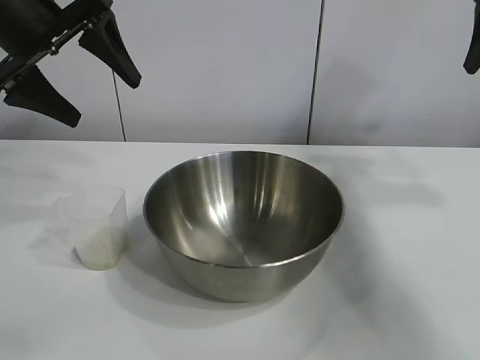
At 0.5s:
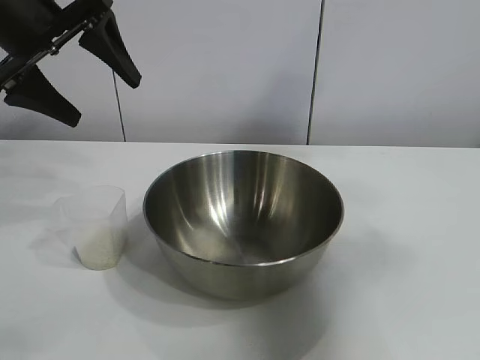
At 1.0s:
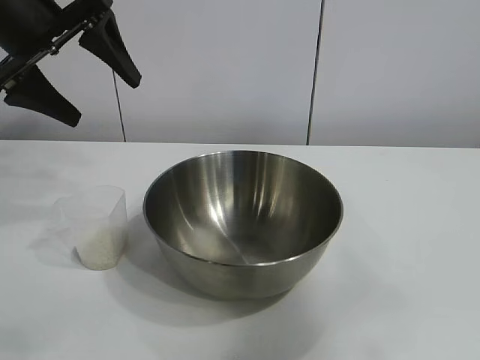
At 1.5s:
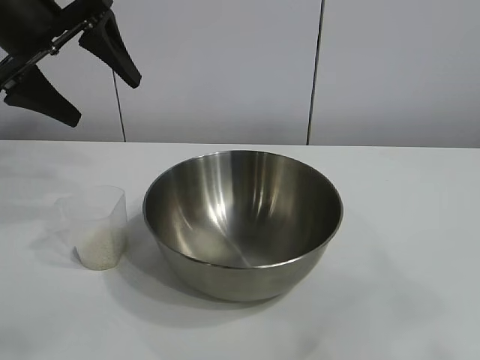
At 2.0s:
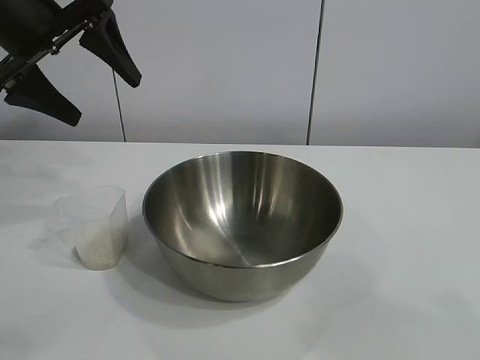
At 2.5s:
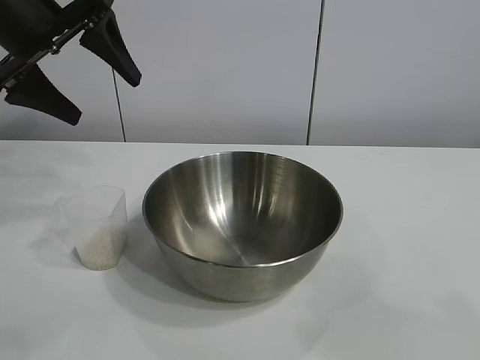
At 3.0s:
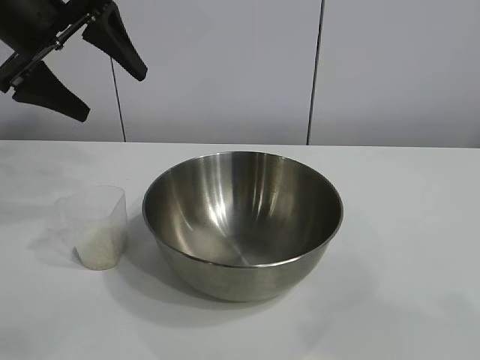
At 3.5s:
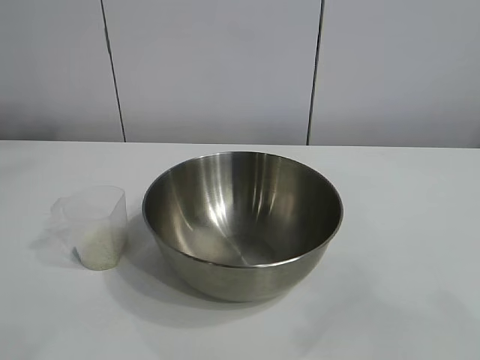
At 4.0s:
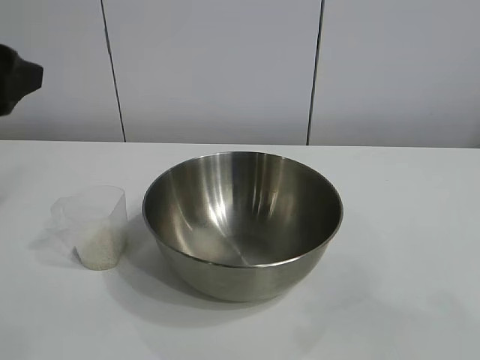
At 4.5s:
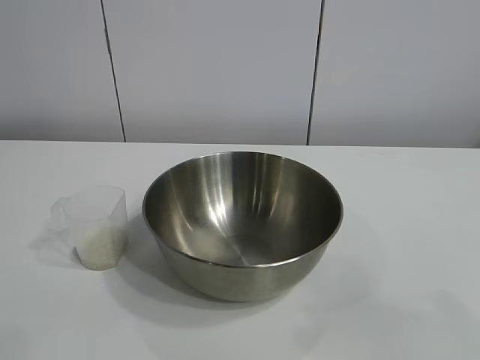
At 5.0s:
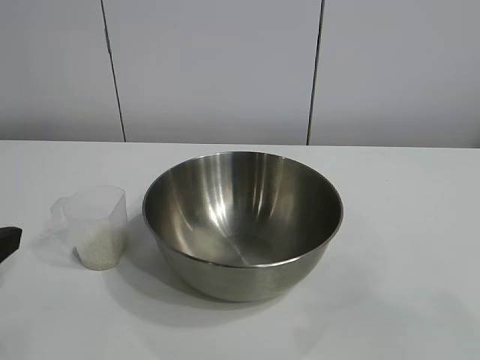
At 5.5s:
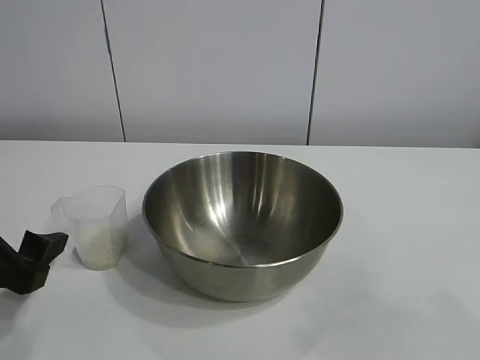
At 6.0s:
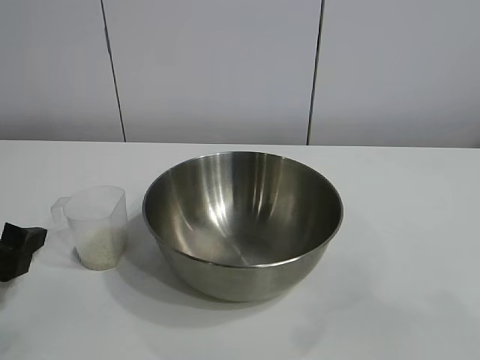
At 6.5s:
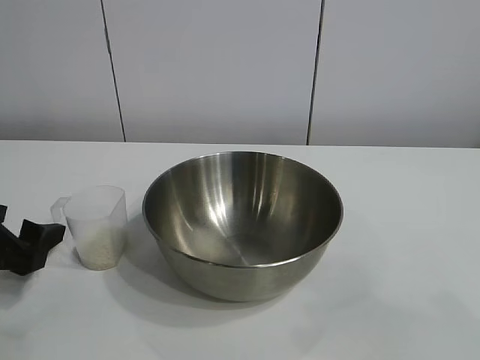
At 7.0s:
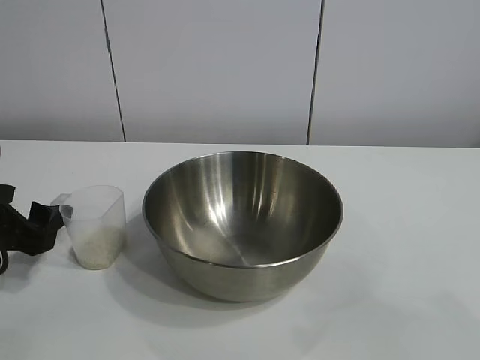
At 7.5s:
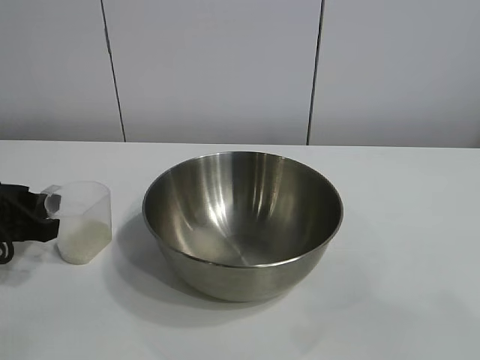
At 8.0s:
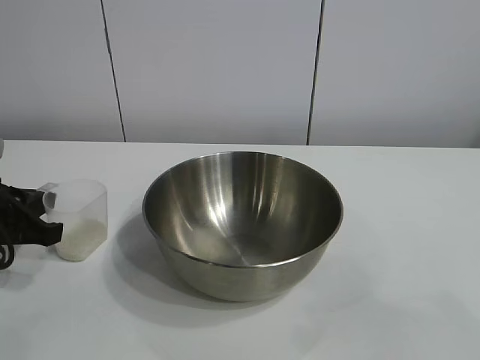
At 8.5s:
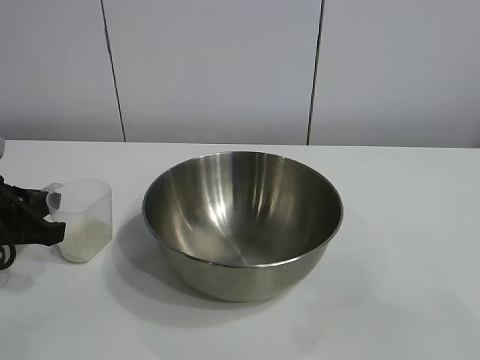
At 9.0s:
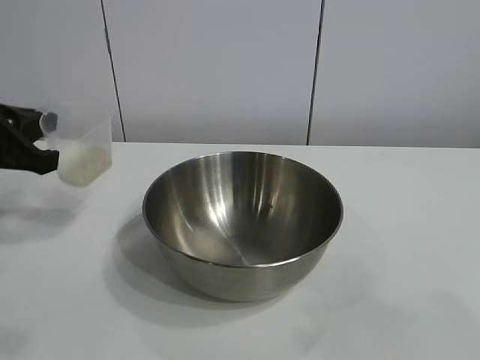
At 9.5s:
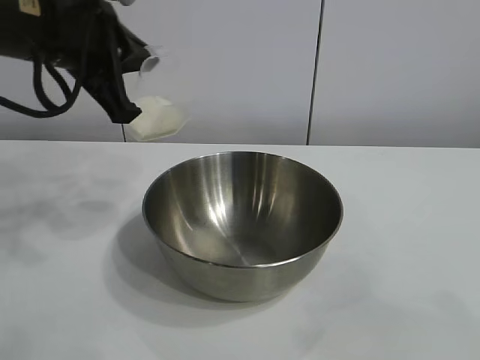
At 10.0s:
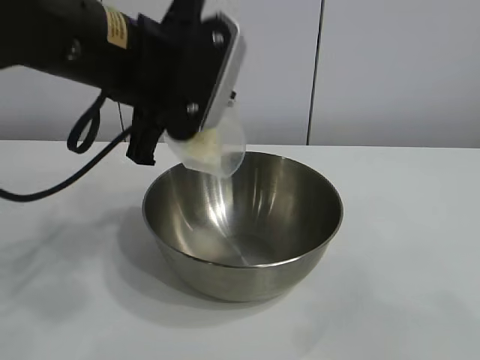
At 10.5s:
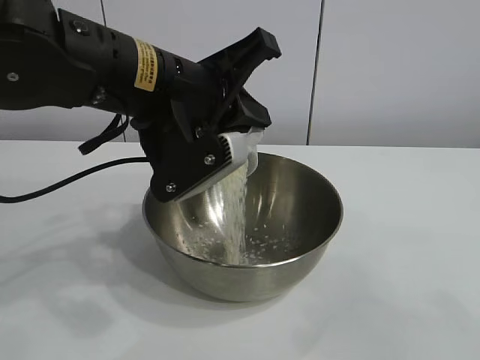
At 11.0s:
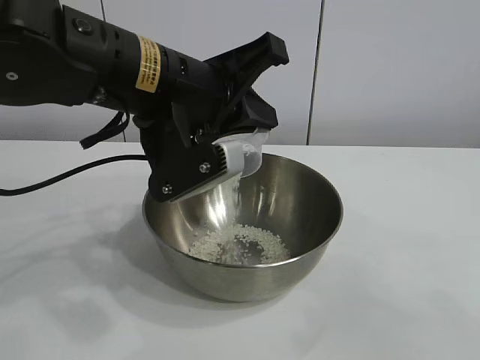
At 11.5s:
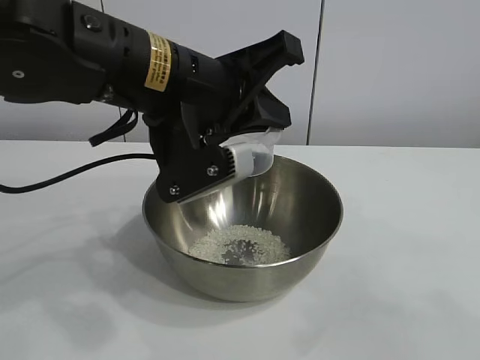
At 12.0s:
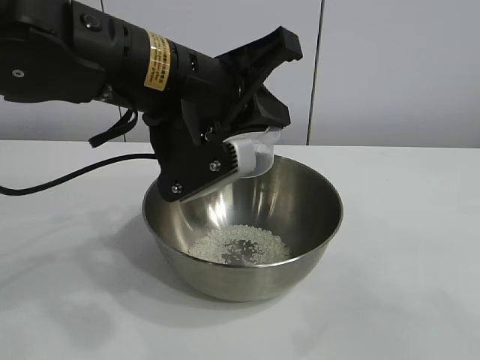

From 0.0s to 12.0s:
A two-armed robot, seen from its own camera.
Task of the whole recording: the right gripper grasp the rice container and place it in the center of the table, the left gripper grasp the rice scoop and pour the rice into the rice container.
Step, from 0.0s to 7.5s: Grasp the cup with rice in it with left gripper.
Step, from 8.0s to 11.0s: Pour the rice from the cup into the bowl with the left gripper.

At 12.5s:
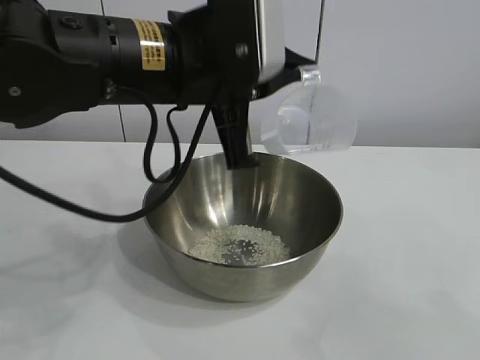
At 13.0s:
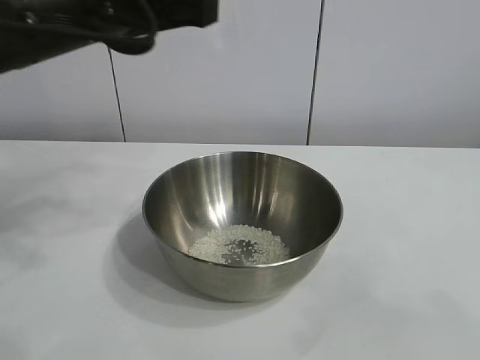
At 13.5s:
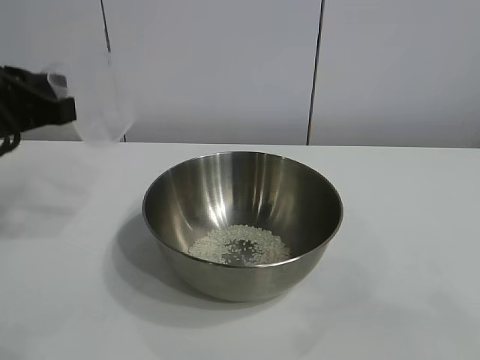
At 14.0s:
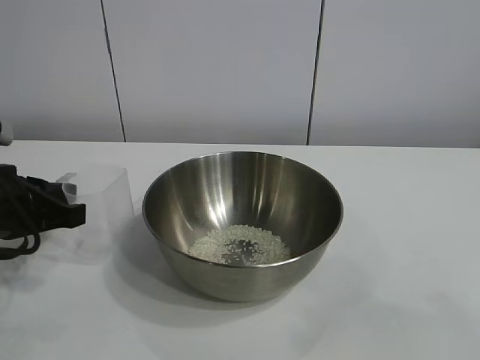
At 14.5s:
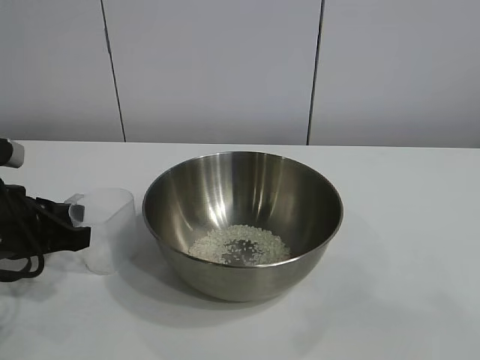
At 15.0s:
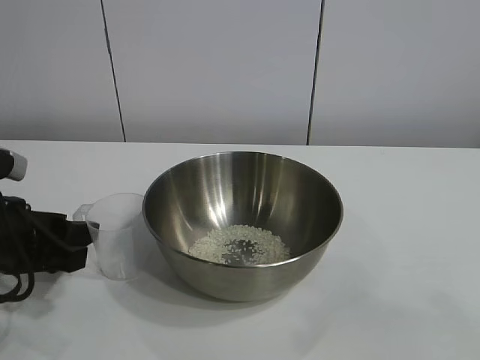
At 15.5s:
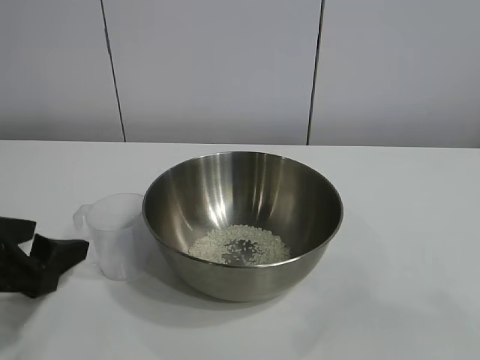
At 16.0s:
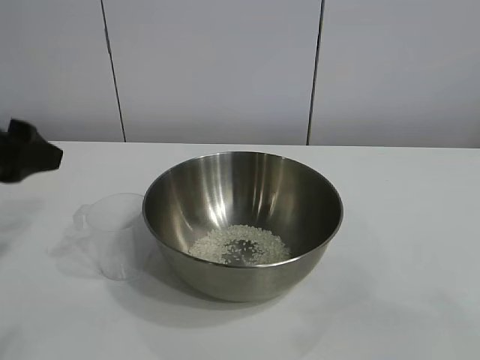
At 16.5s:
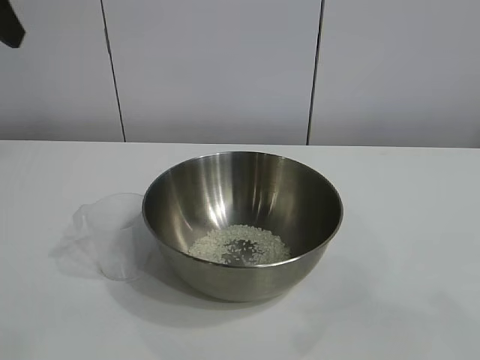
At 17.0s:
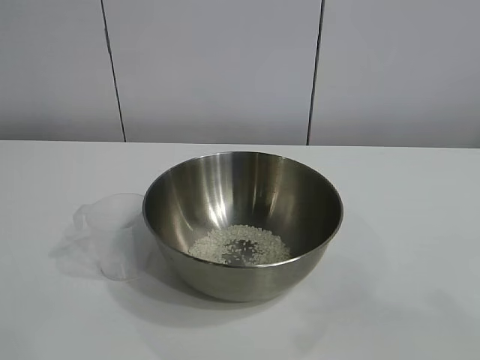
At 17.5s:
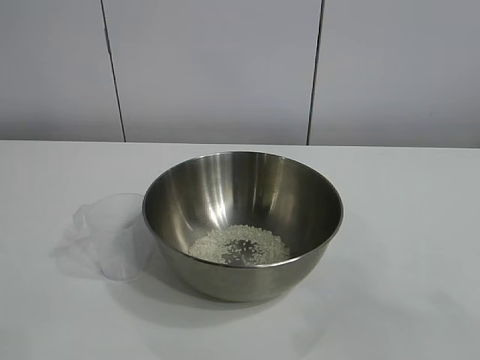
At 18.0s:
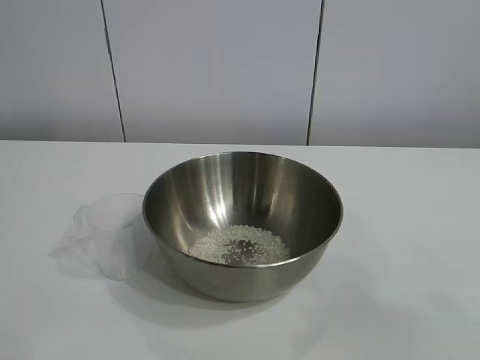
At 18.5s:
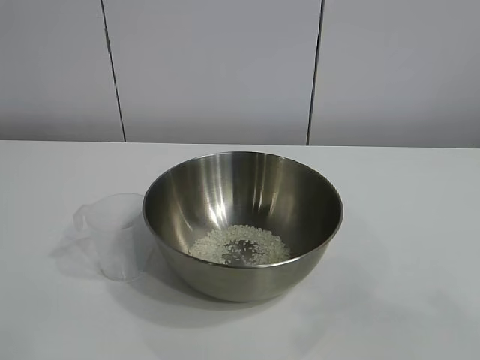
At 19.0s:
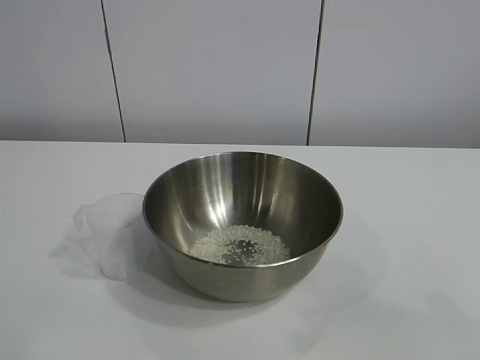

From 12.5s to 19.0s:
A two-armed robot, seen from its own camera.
Task of the whole recording: the right gripper grasp the rice container and place it in the center of the table, the left gripper grasp the rice scoop and pour the rice into the rice container.
Step, from 12.5s to 14.5s: Place the cup on the table with the left gripper.

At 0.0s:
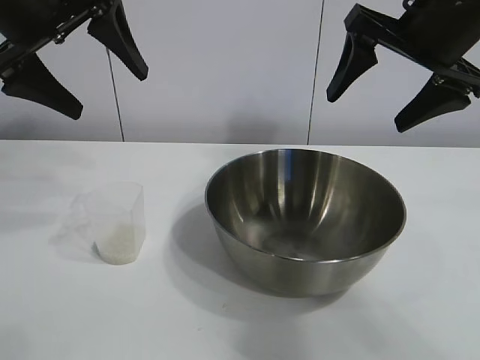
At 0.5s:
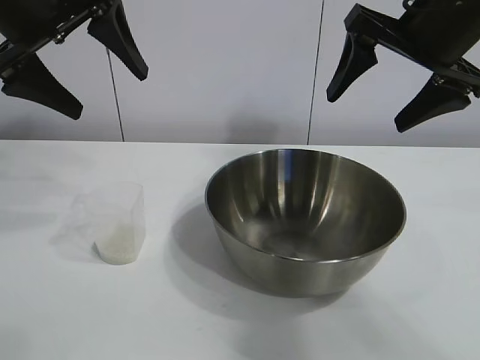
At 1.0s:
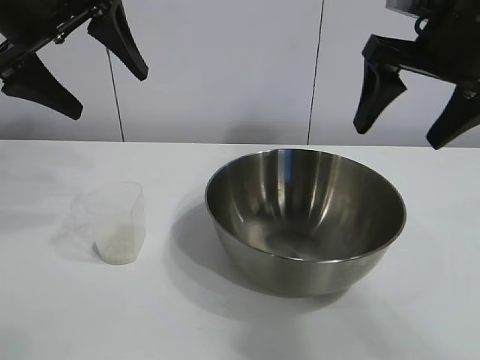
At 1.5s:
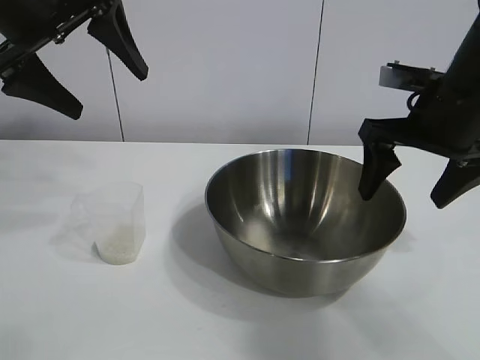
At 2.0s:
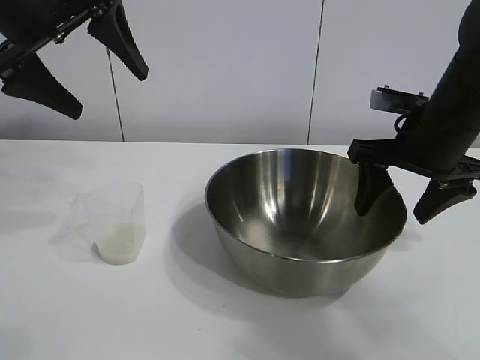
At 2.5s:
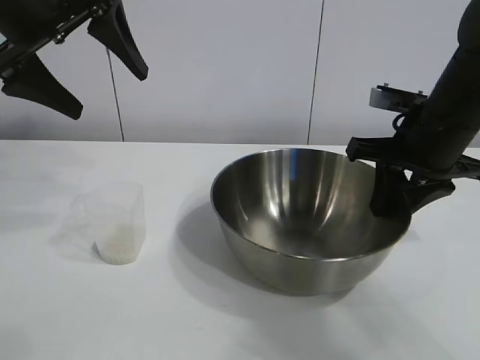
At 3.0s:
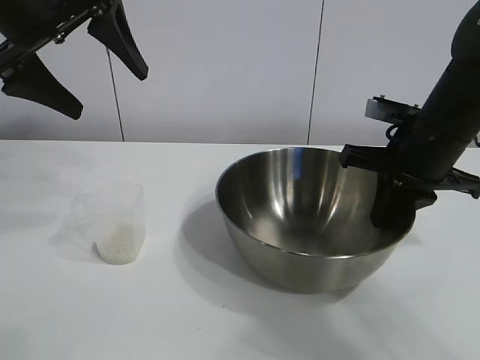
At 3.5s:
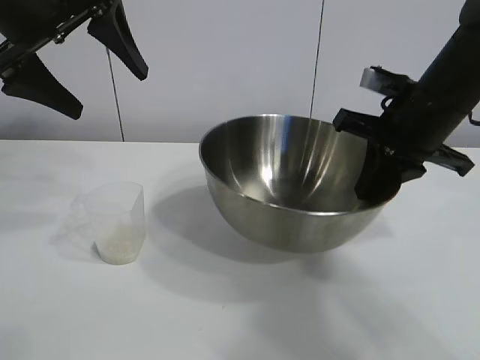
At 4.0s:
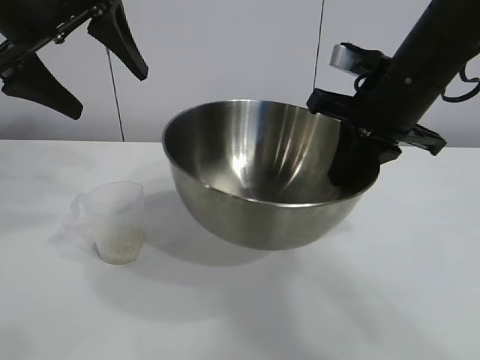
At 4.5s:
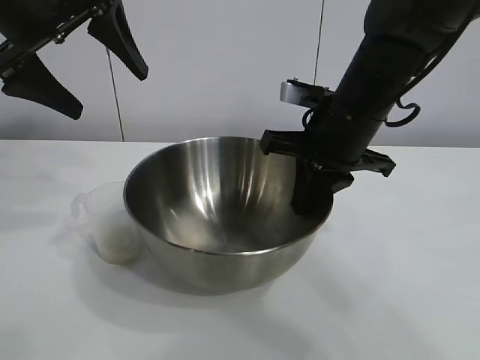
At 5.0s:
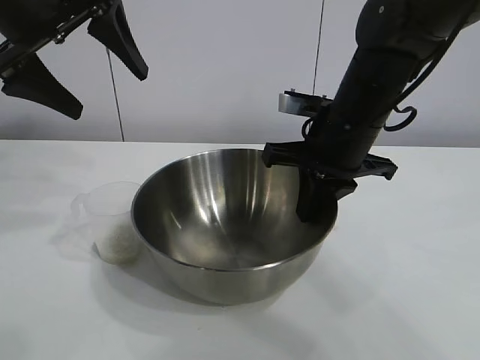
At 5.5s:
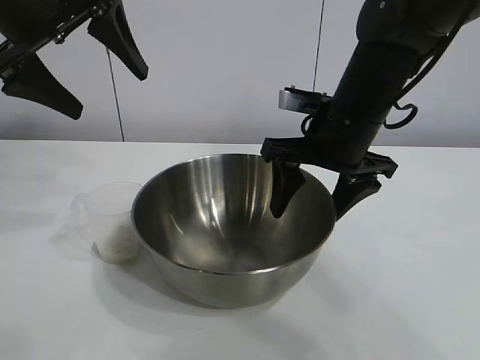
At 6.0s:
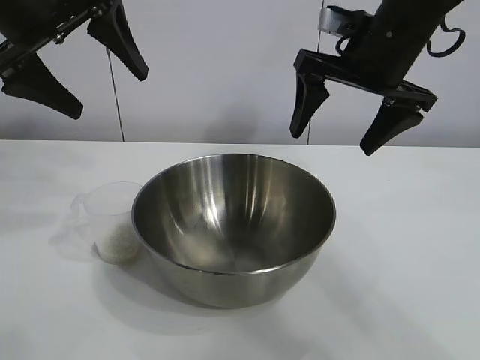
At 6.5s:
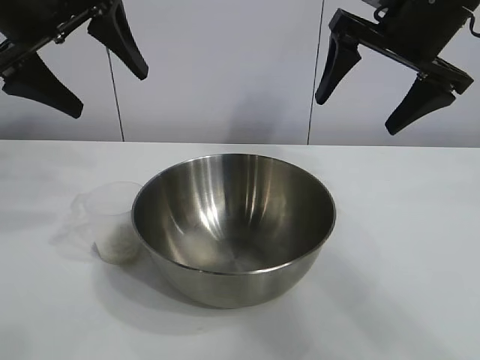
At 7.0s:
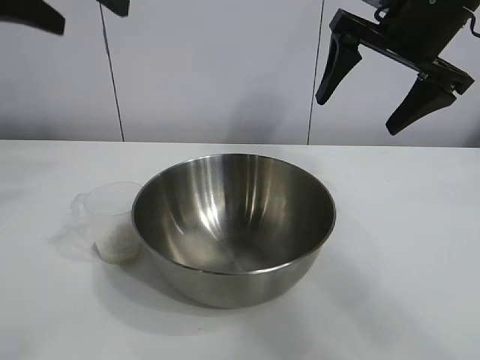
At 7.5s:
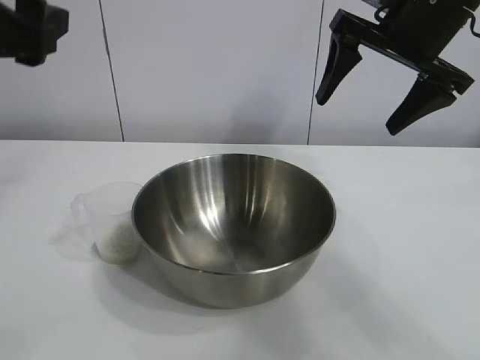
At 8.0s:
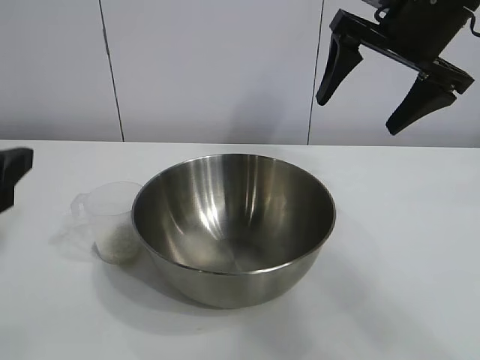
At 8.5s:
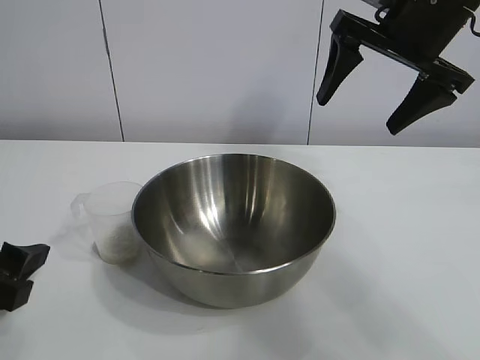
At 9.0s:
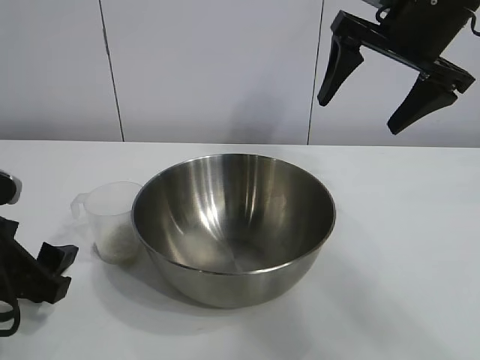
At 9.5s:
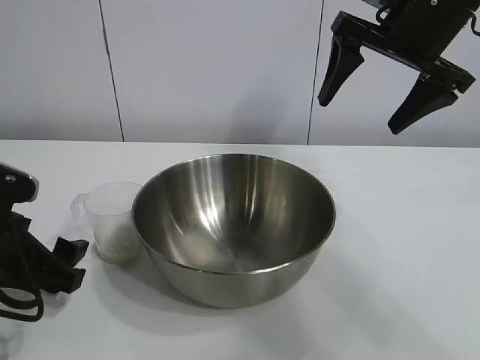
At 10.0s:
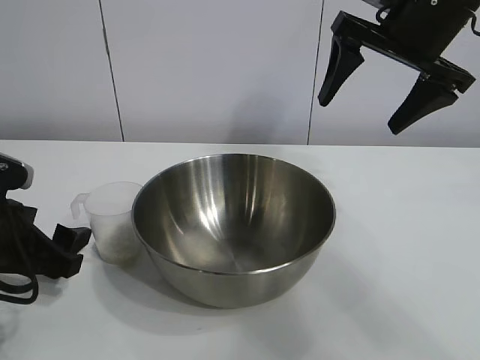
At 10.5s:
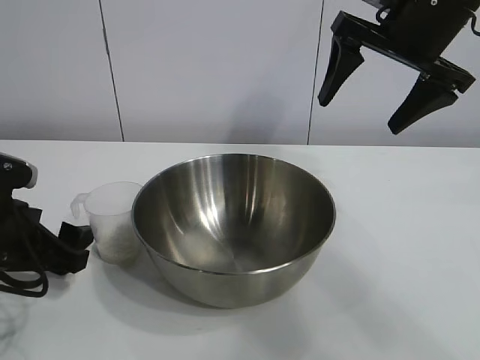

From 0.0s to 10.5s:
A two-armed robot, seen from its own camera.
Task of the whole recording: the right gripper grasp the rice container and place it in the center of the table, the left gripper grasp the rice scoop and pour the rice into the rice container.
Step, from 1.0s to 5.0s: Move the bowl in the center of view with right gripper.
